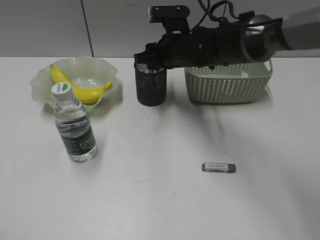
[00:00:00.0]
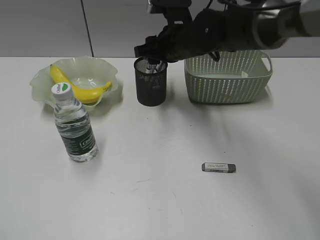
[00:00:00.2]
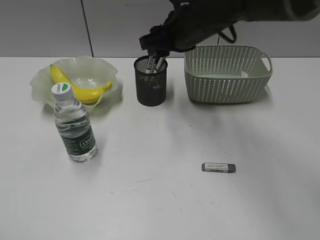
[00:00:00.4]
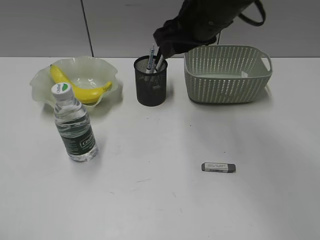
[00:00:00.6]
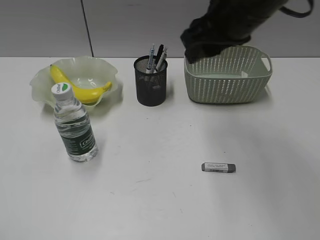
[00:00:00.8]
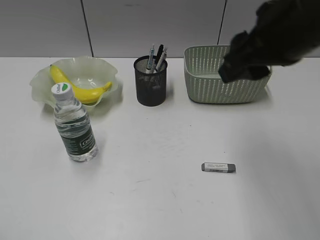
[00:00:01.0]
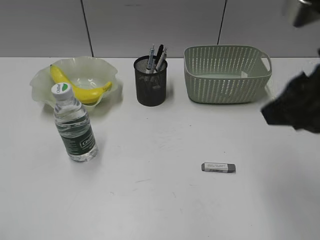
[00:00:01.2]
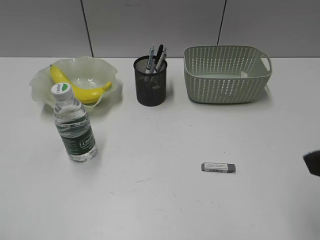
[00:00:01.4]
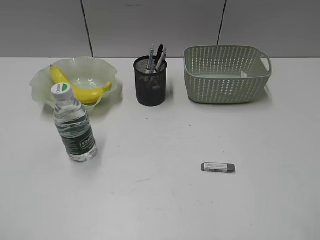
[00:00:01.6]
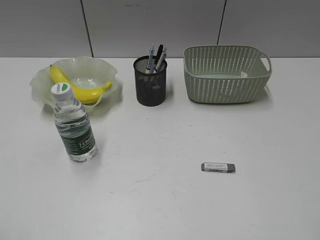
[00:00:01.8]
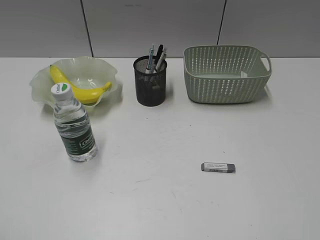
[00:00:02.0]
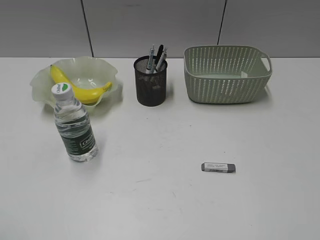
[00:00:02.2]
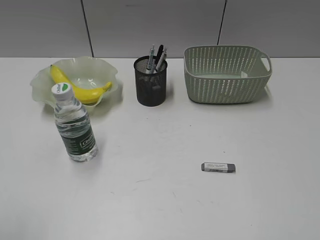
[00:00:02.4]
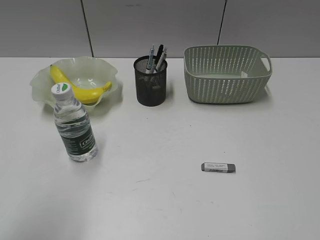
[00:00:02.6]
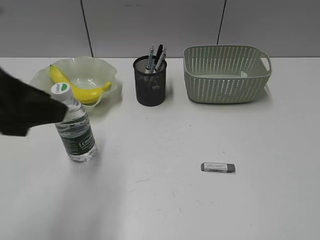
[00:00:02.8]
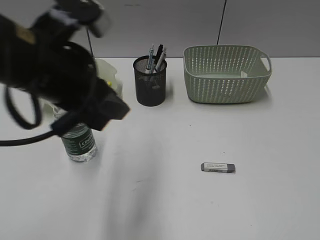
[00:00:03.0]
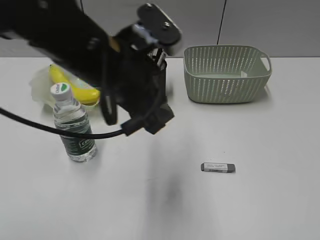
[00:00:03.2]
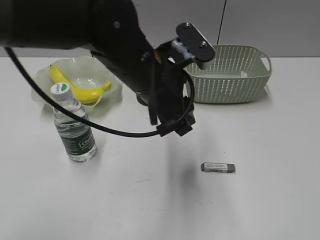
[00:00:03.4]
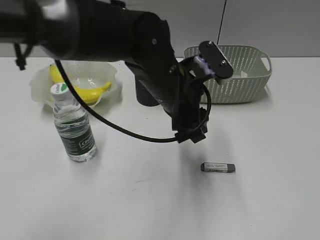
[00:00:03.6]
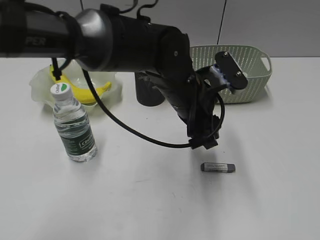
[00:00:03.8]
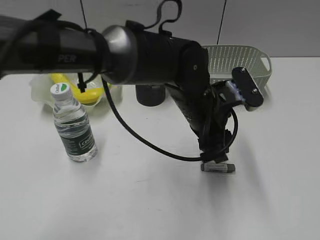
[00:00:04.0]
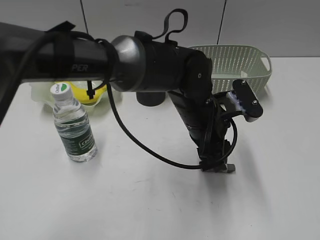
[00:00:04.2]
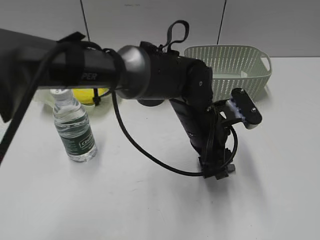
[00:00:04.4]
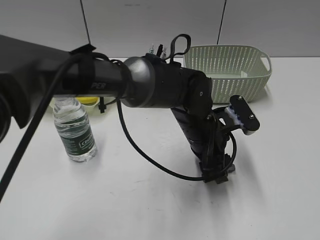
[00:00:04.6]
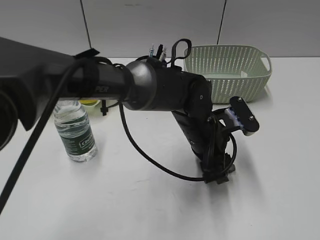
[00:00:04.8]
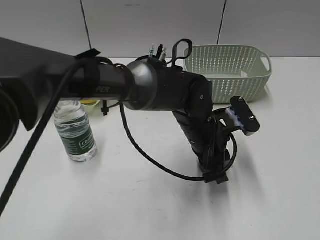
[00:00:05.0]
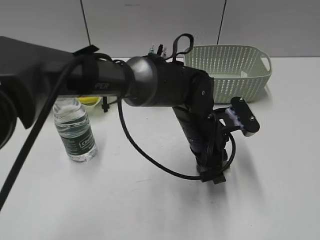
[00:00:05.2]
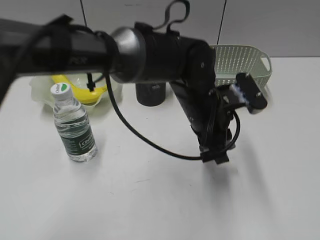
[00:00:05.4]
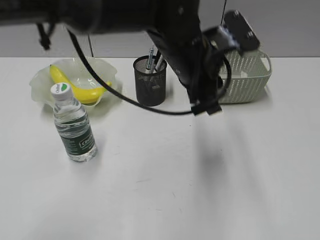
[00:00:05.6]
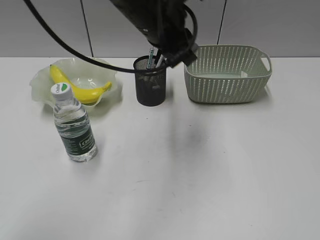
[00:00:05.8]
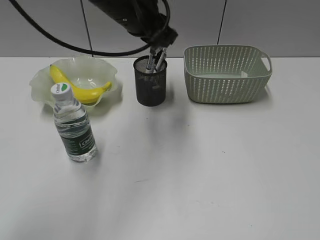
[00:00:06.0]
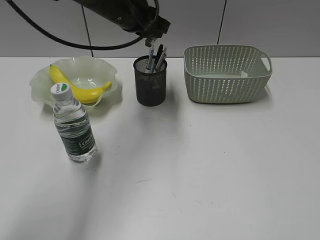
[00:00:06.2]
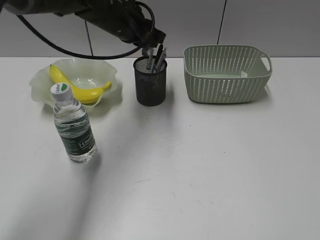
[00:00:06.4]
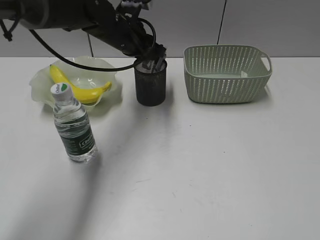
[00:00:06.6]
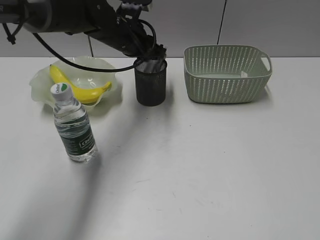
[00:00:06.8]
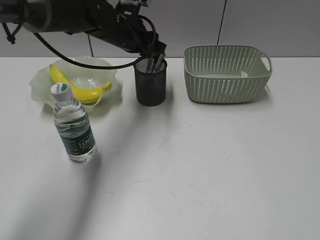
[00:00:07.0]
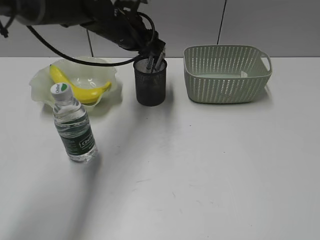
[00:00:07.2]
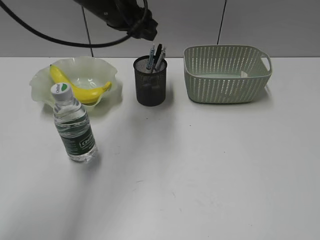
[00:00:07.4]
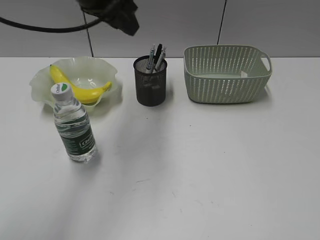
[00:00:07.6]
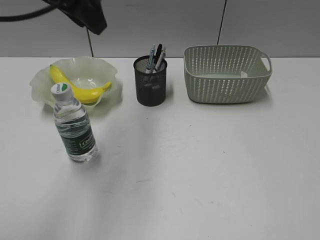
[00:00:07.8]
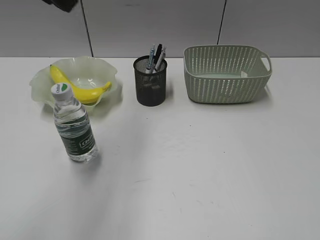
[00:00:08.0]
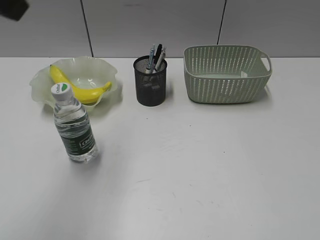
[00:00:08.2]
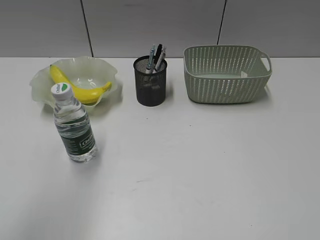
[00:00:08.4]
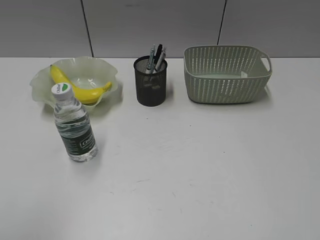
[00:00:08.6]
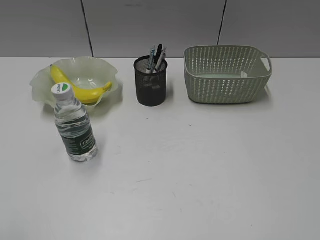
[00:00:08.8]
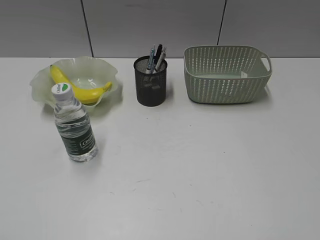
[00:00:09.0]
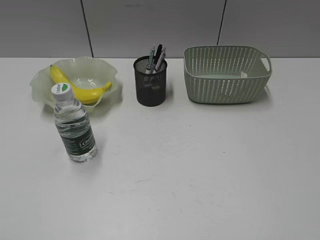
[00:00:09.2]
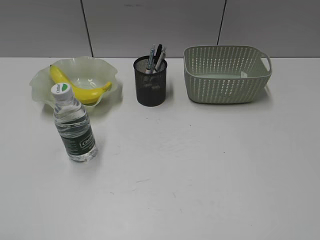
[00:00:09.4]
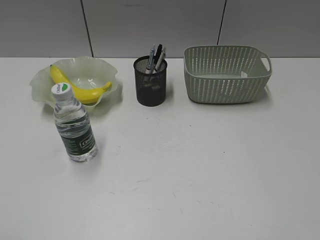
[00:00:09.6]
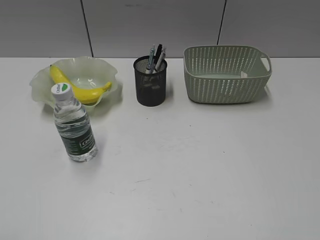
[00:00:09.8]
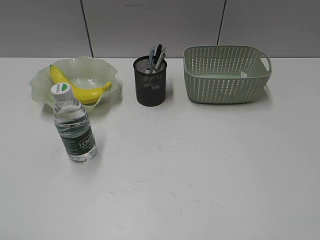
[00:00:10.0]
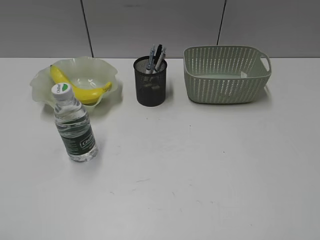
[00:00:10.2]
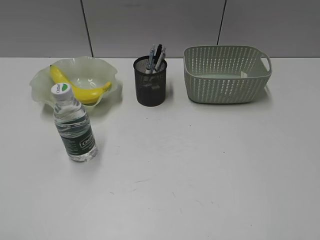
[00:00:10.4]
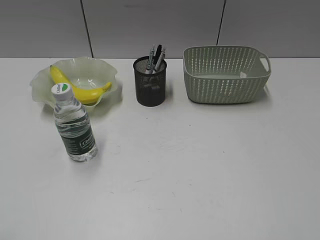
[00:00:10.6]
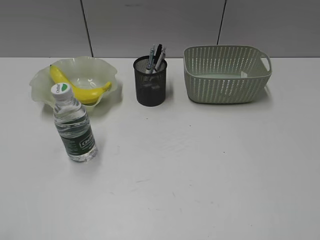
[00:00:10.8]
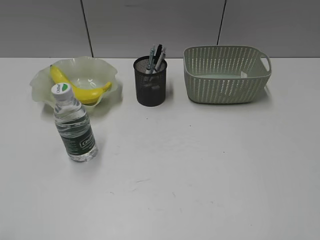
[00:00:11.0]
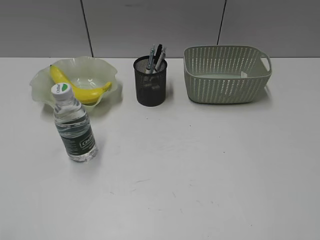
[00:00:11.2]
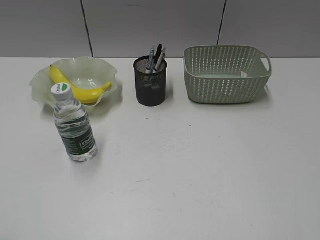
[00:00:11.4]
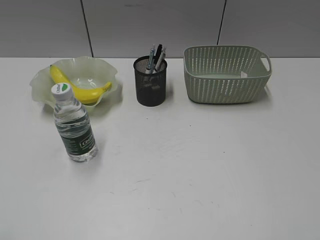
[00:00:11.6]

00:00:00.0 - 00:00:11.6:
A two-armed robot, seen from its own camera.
Step, 00:00:00.2 - 00:00:05.0: Grasp the eraser with left gripper.
Step, 00:00:05.2 - 00:00:07.0: Place the eraser in pen holder with left gripper.
00:00:00.0 - 00:00:01.4: The right gripper heads backward, to the right and upward, covering about 40 cm.
00:00:01.4 - 00:00:02.8: The right gripper heads backward and to the right, covering roughly 15 cm, while the left gripper travels forward and to the right by about 20 cm.
00:00:02.8 - 00:00:04.4: The left gripper moves to the right, downward and forward, approximately 35 cm.
00:00:04.4 - 00:00:05.8: The left gripper moves upward, to the left and forward, roughly 20 cm, and closes its fingers.
00:00:05.8 - 00:00:07.2: The left gripper heads forward, to the left and downward, covering some 15 cm, and opens its fingers.
00:00:07.2 - 00:00:08.8: The left gripper is displaced backward and to the left by roughly 50 cm.

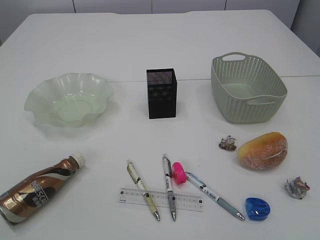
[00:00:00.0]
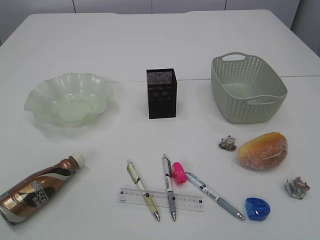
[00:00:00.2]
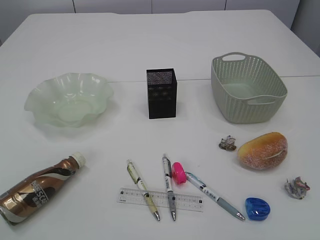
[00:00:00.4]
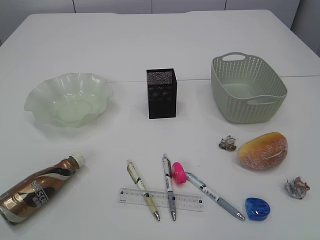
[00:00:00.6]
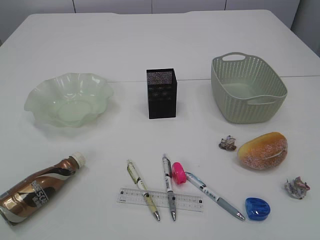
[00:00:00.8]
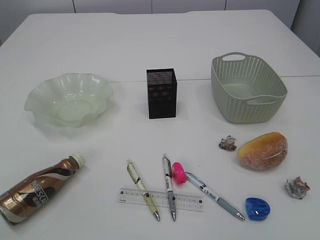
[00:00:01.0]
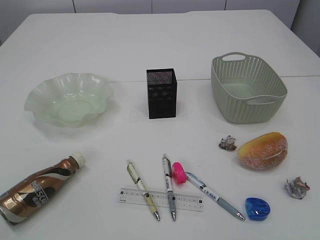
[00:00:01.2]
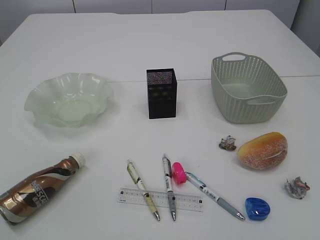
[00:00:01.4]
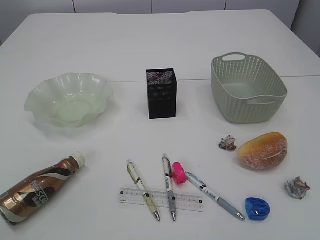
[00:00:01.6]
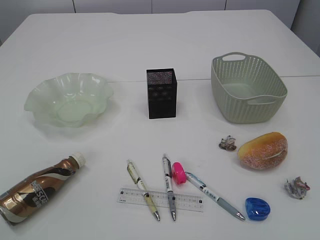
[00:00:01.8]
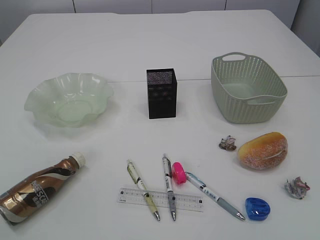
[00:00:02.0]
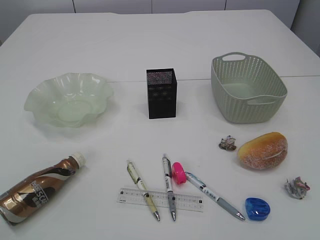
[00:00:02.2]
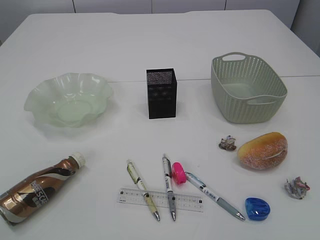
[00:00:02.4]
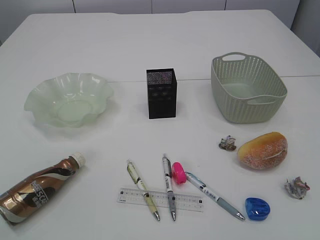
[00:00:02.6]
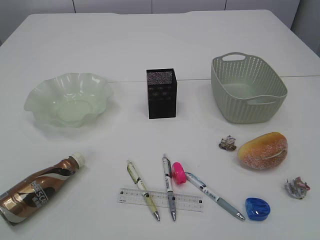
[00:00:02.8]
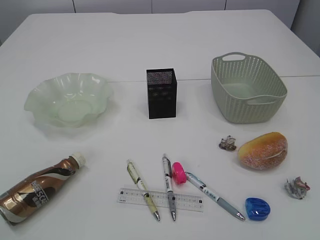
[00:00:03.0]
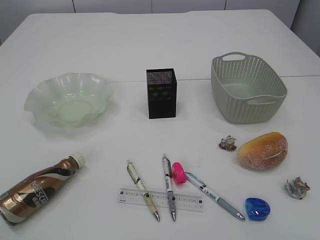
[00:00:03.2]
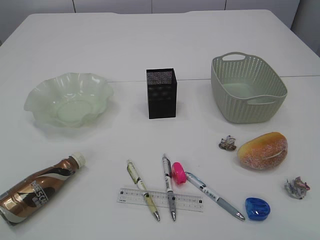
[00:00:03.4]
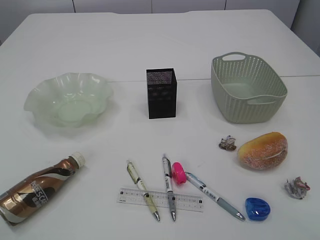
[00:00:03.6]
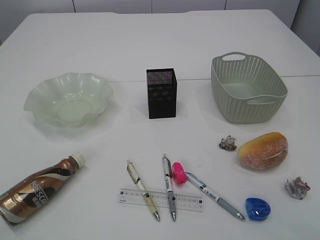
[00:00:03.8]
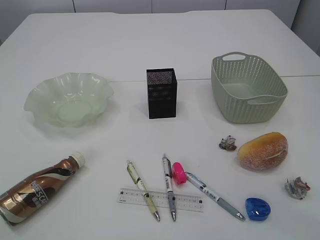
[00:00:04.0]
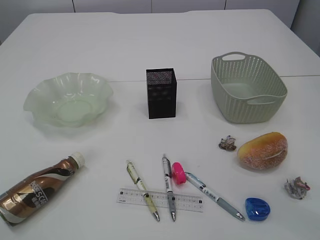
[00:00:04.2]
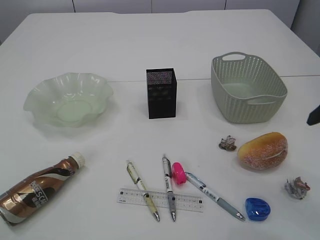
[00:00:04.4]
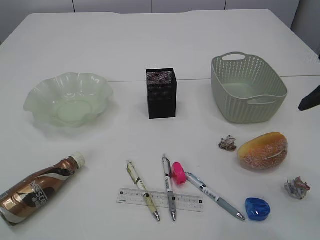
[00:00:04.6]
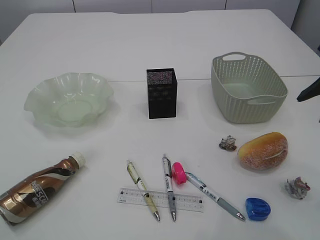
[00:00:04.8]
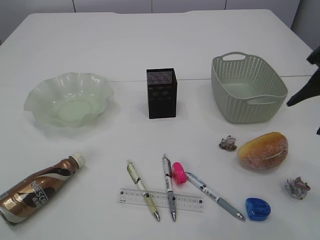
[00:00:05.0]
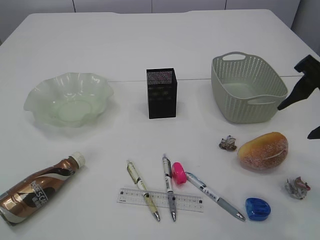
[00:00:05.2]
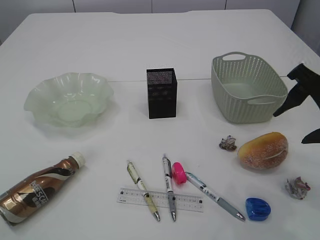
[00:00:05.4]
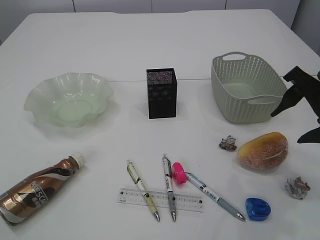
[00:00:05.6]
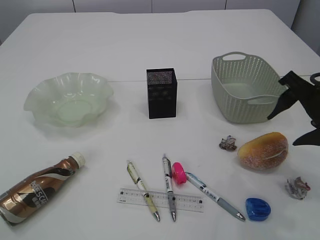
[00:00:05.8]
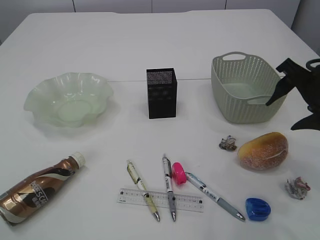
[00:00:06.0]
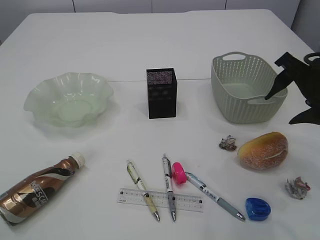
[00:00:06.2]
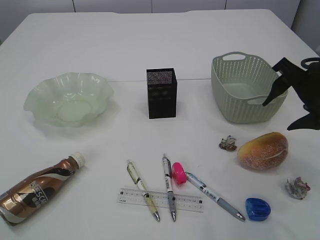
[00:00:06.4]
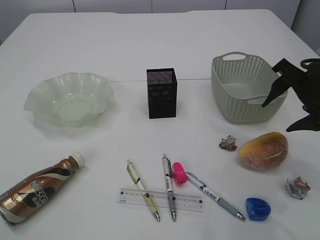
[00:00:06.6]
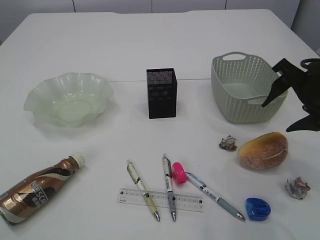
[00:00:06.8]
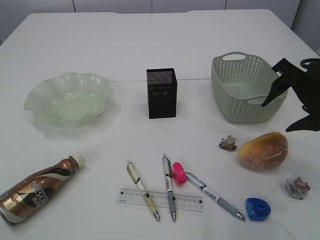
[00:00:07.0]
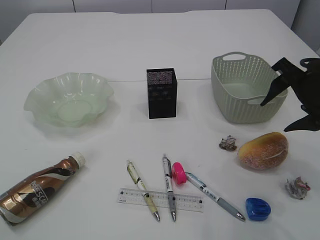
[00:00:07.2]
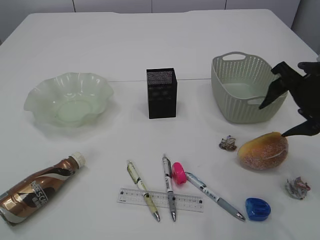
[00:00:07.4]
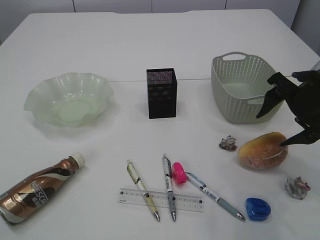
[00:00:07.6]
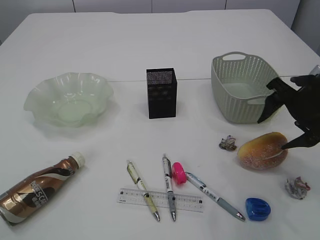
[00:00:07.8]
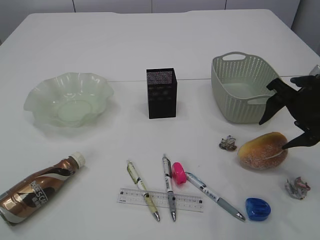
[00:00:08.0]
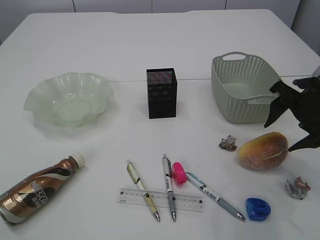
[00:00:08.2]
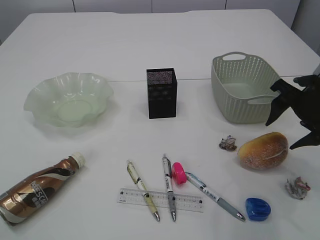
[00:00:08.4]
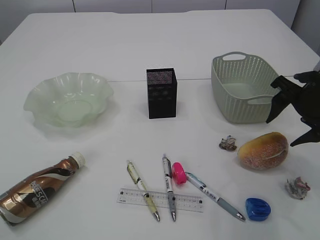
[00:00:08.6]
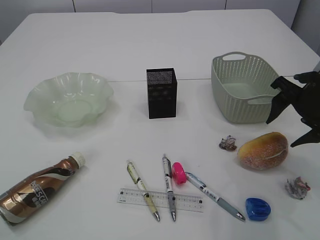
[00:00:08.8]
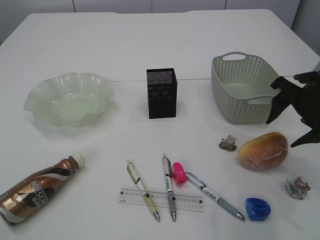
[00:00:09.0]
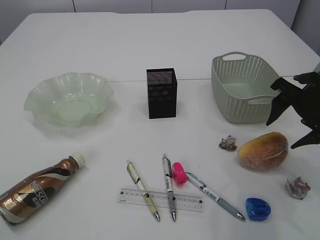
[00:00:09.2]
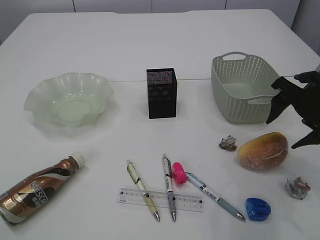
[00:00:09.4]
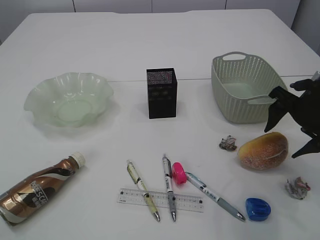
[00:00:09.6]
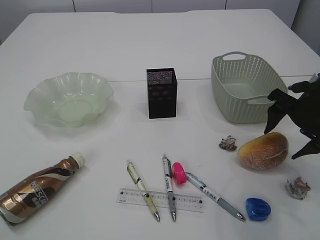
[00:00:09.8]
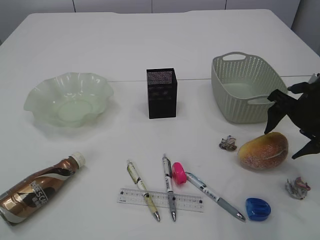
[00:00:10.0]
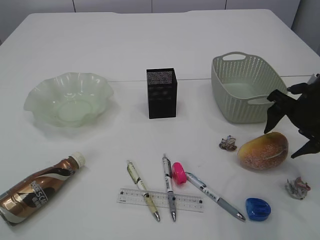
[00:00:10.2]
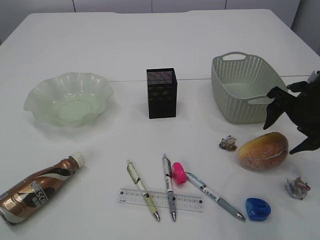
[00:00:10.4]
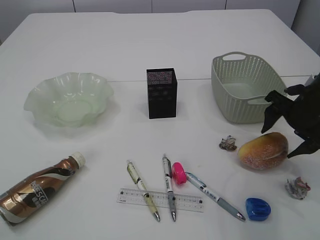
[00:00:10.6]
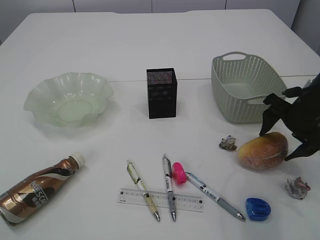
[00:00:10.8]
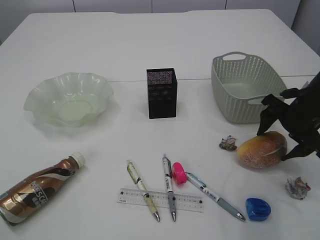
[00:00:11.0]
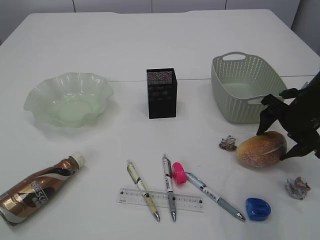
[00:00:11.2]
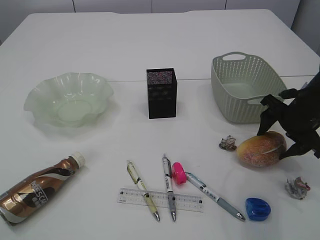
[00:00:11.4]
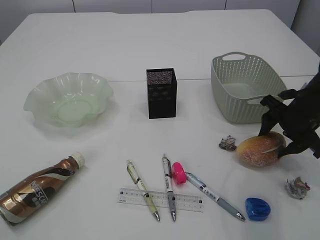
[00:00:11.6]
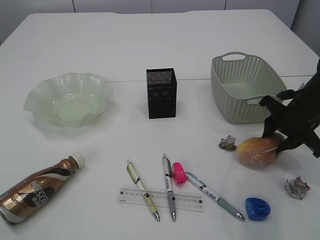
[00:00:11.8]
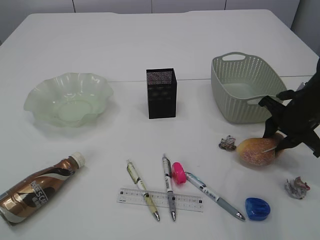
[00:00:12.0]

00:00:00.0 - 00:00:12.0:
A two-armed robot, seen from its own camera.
00:00:04.4 - 00:00:06.0: The right gripper heads forward and downward, covering approximately 15 cm.
00:00:06.0 - 00:00:09.0: The grippers make only small movements.
00:00:09.0 - 00:00:10.4: There are only small adjustments of the grippers.
00:00:10.4 - 00:00:12.0: The right gripper closes its fingers.
